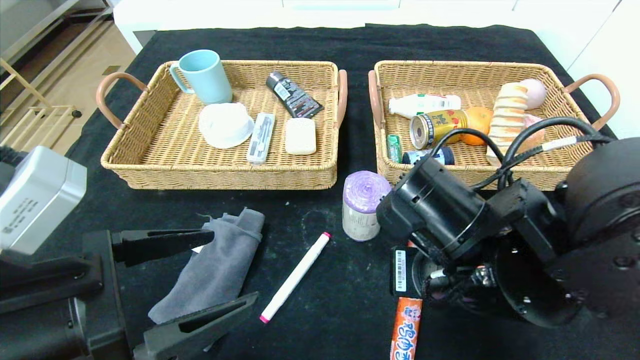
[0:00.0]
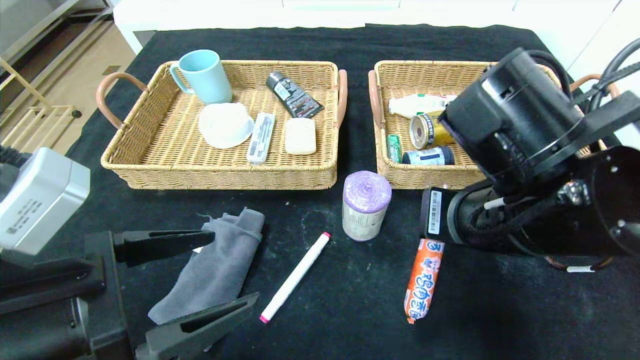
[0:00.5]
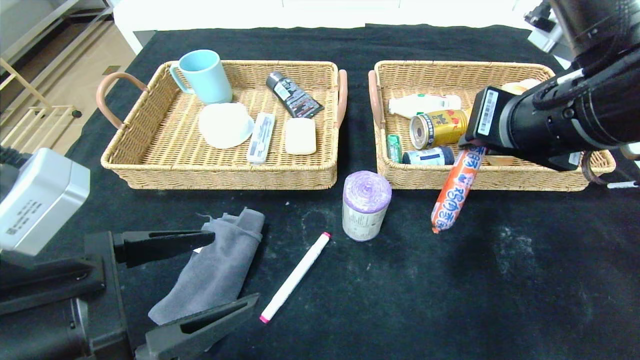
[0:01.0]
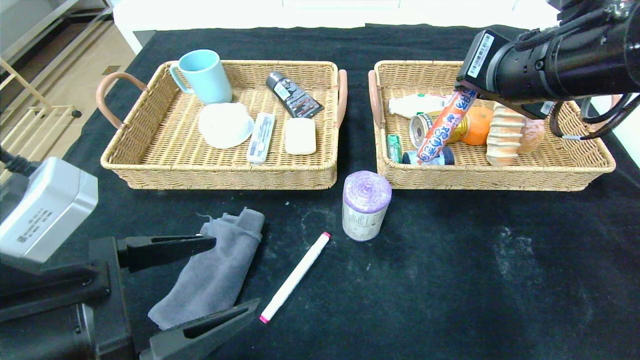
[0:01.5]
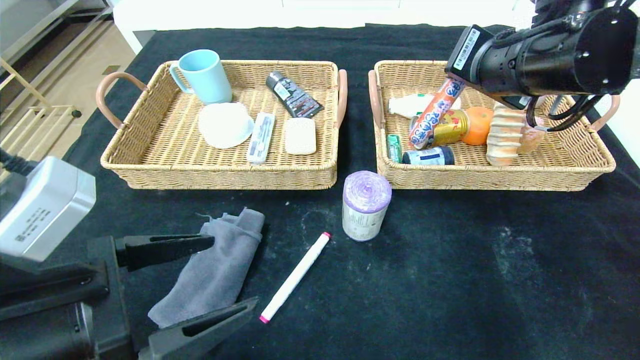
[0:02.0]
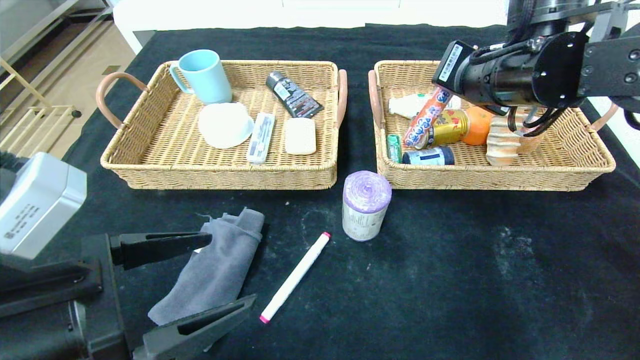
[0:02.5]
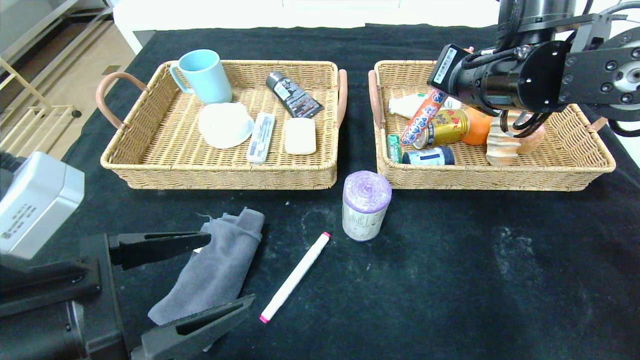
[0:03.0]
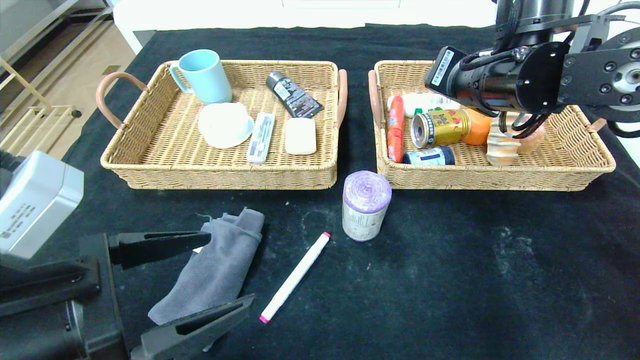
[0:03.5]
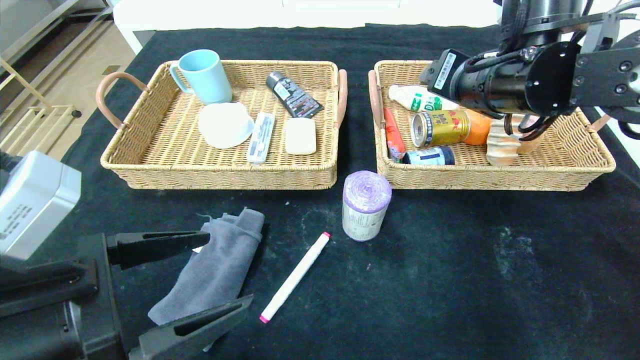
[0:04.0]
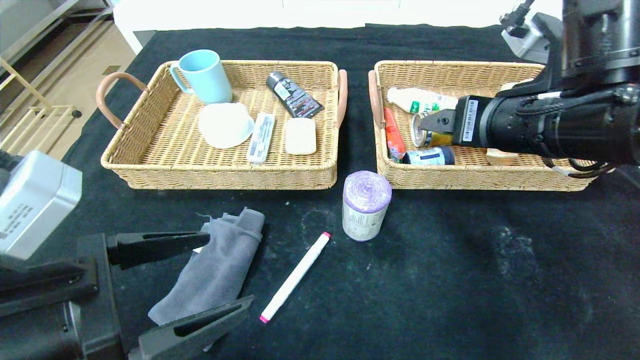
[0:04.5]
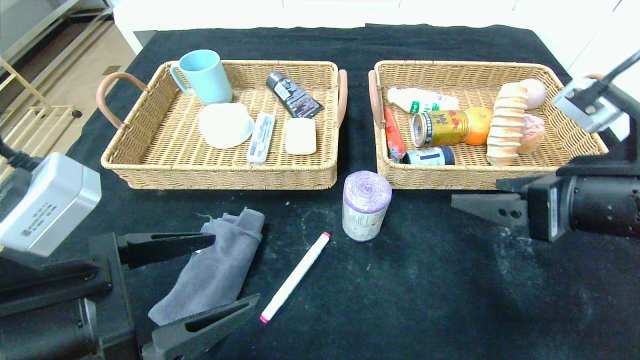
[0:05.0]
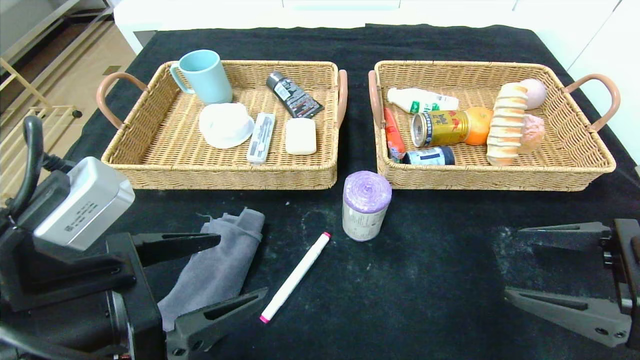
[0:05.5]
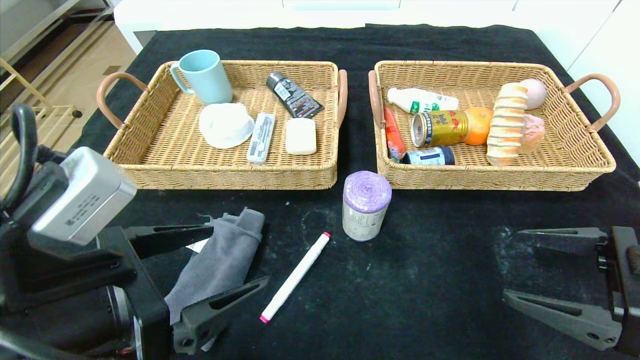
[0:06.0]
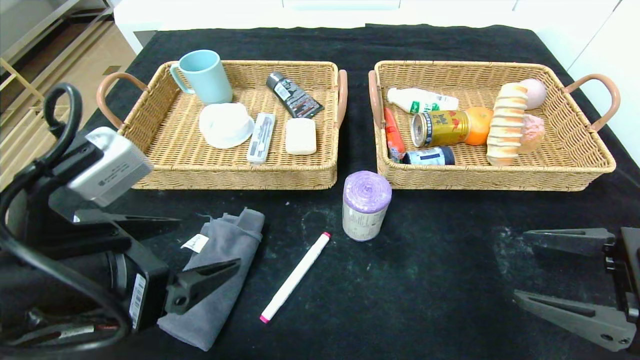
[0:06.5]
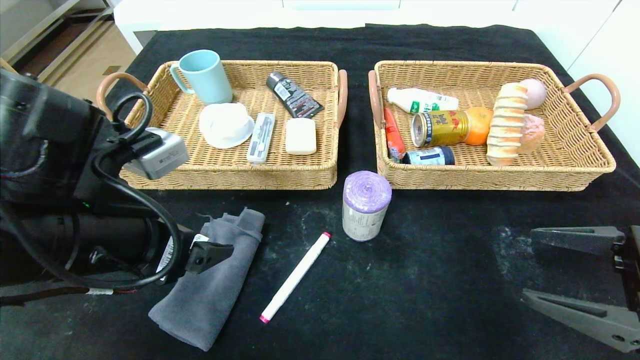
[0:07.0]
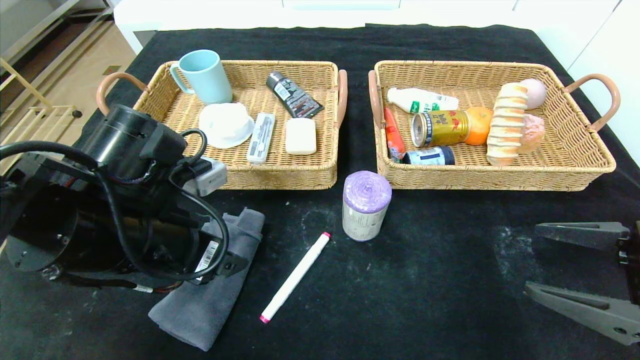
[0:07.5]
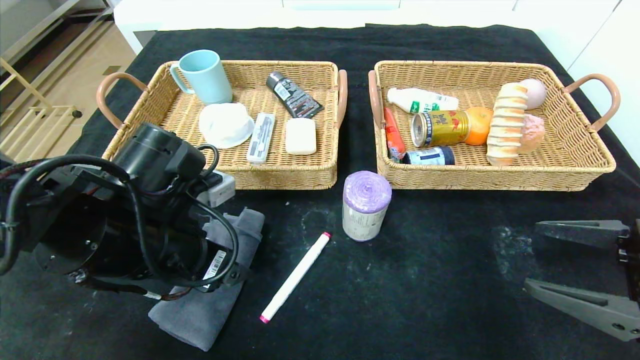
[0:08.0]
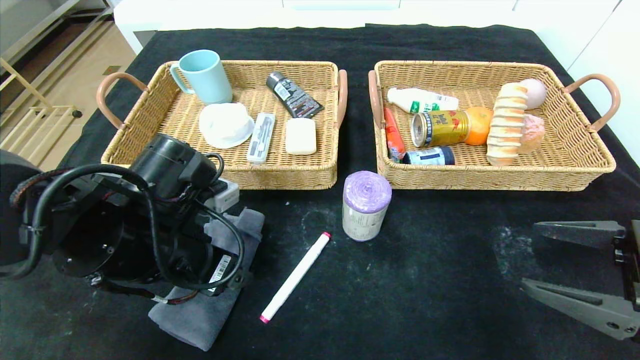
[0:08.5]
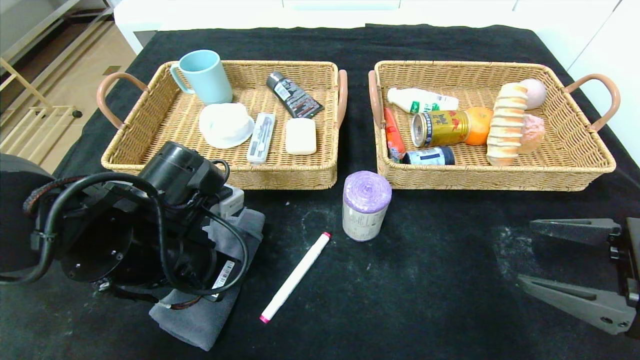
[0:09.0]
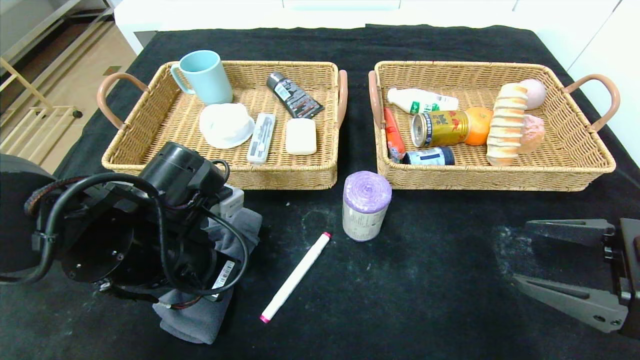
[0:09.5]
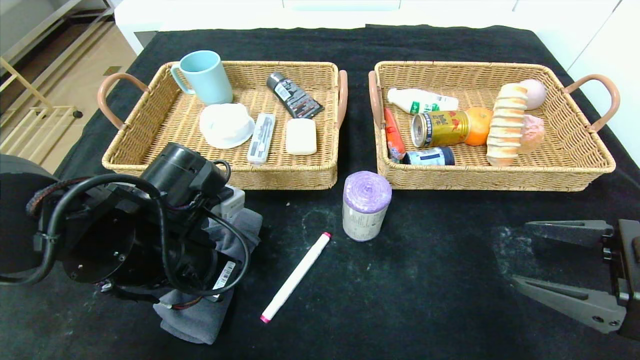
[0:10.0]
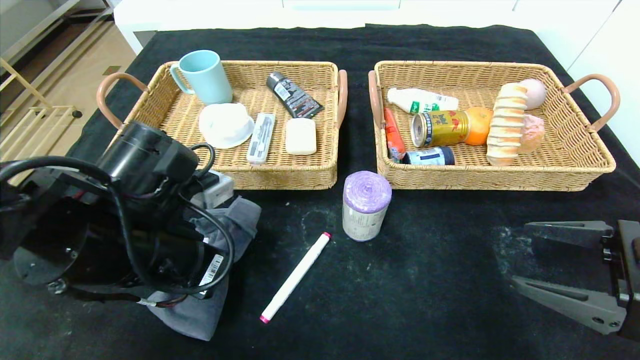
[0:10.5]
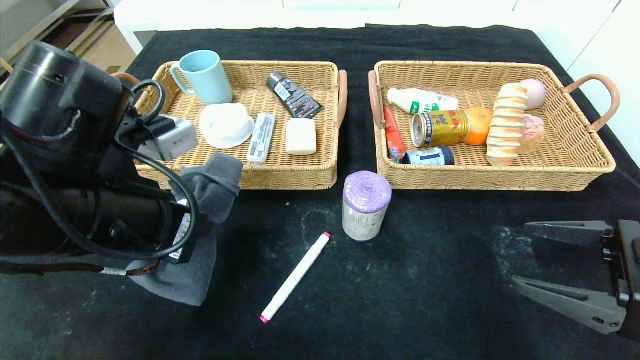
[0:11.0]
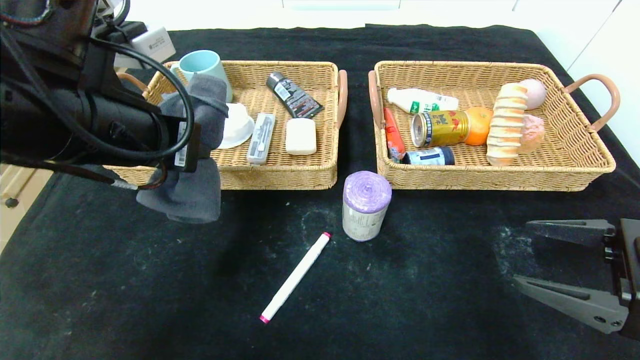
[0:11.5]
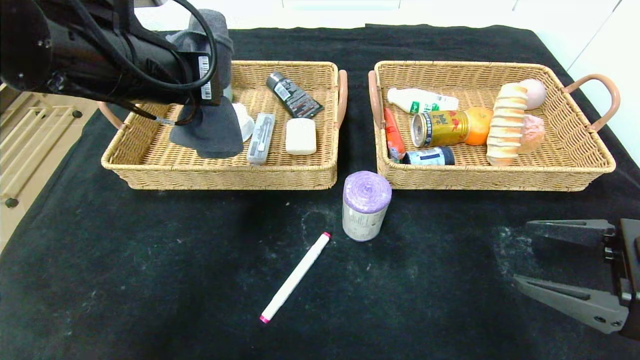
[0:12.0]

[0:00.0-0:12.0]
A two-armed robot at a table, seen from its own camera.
Step, 0:00.0 to 0:05.5: Pick up the sausage and put it in the right basket.
0:00.0 to 0:02.0: The right gripper moves upward, forward and to the right, roughly 20 cm.
0:02.0 to 0:04.0: The right gripper opens up.
0:04.0 to 0:06.0: The right gripper shifts some 25 cm backward, to the right and downward.
0:06.0 to 0:08.0: The left gripper travels forward by roughly 10 cm.
0:08.0 to 0:10.0: The left gripper closes.
0:10.0 to 0:12.0: The left gripper heads upward, covering approximately 15 cm.

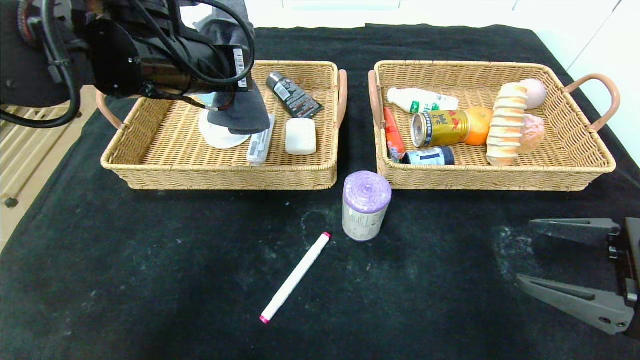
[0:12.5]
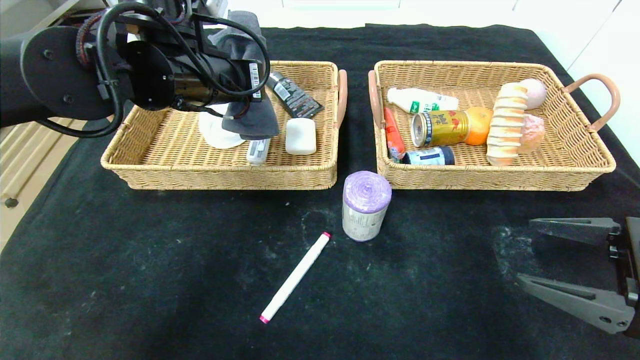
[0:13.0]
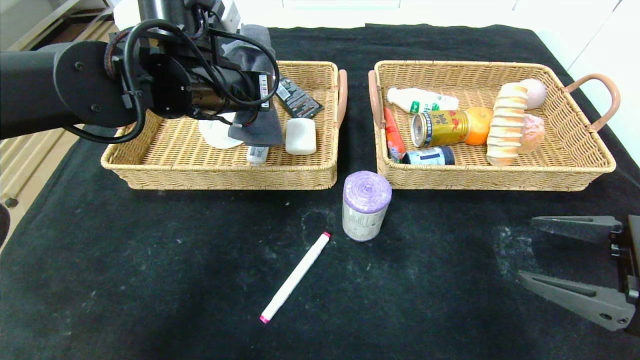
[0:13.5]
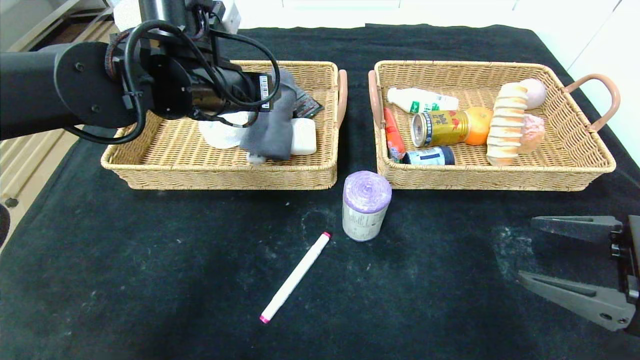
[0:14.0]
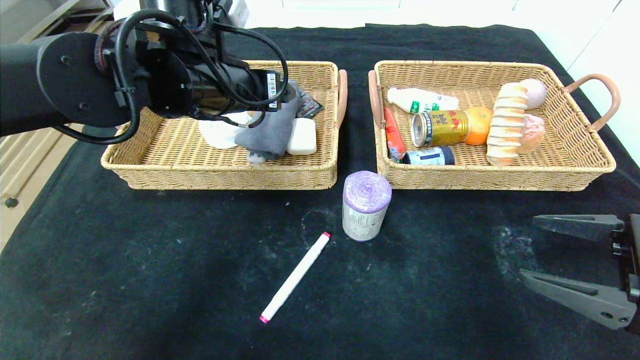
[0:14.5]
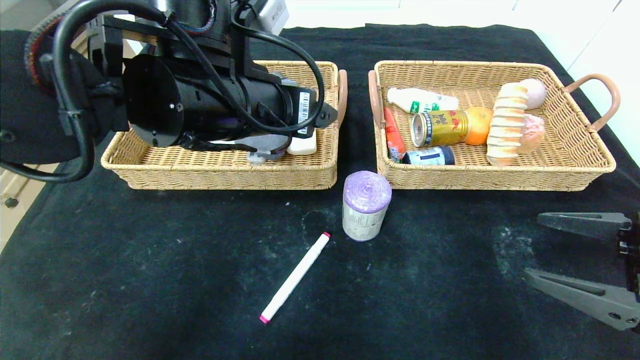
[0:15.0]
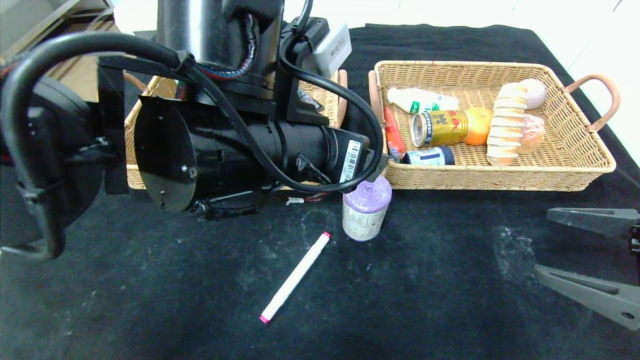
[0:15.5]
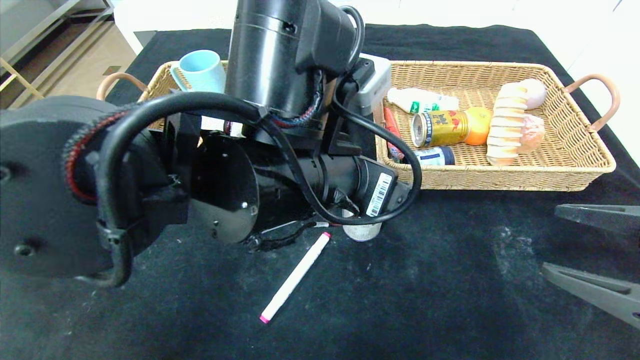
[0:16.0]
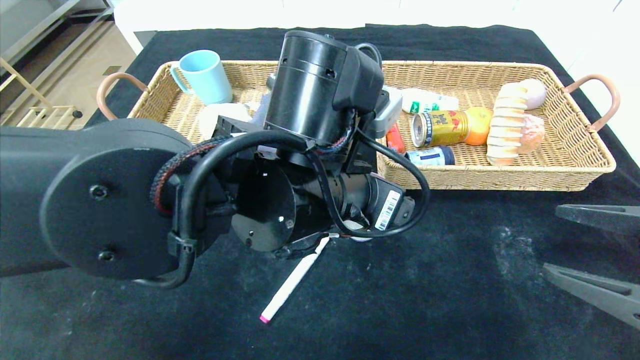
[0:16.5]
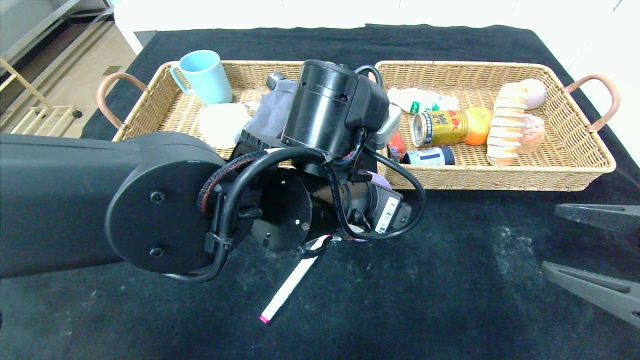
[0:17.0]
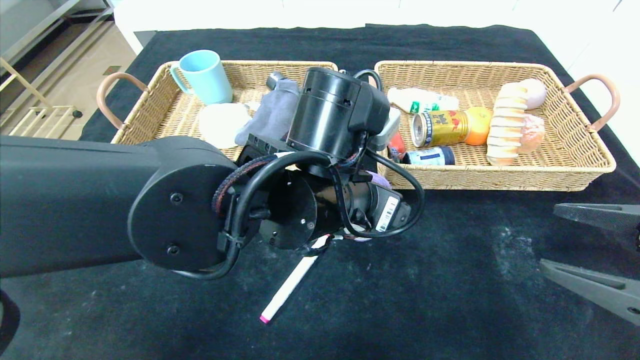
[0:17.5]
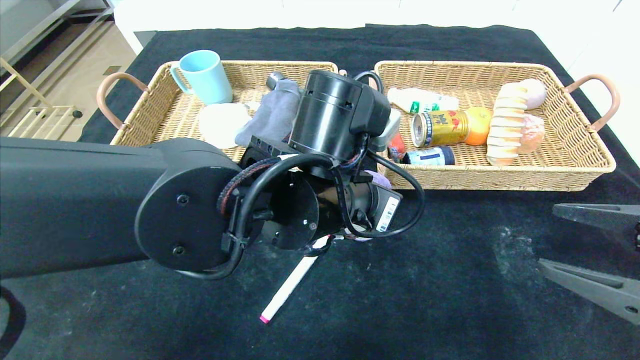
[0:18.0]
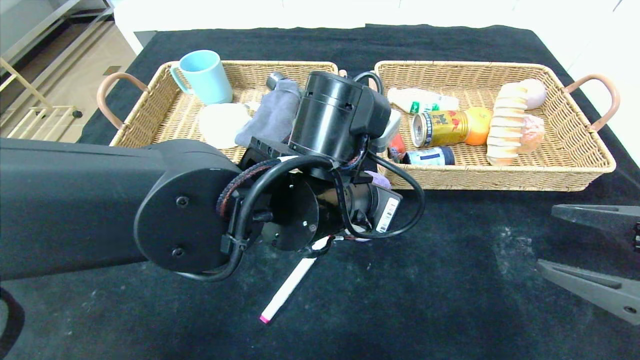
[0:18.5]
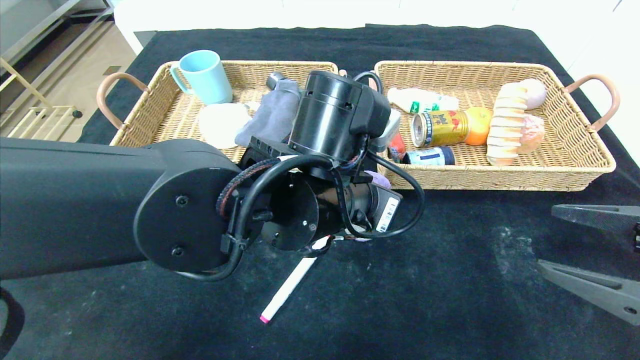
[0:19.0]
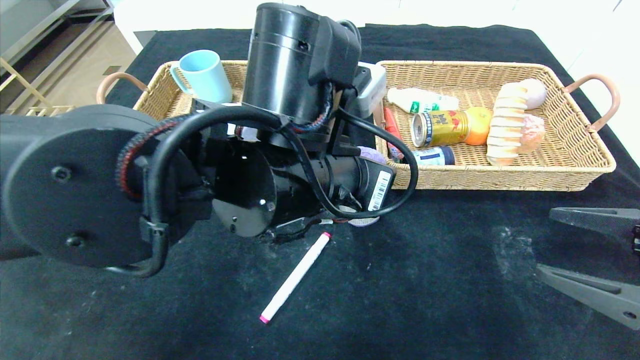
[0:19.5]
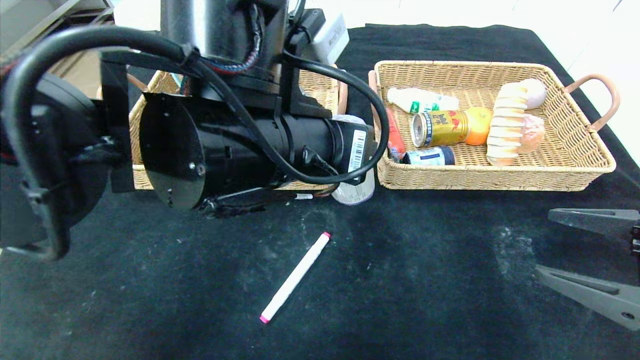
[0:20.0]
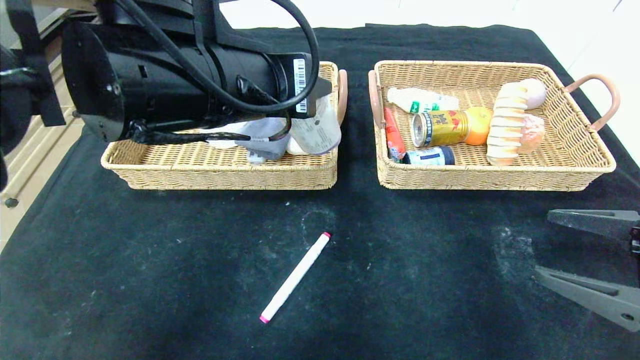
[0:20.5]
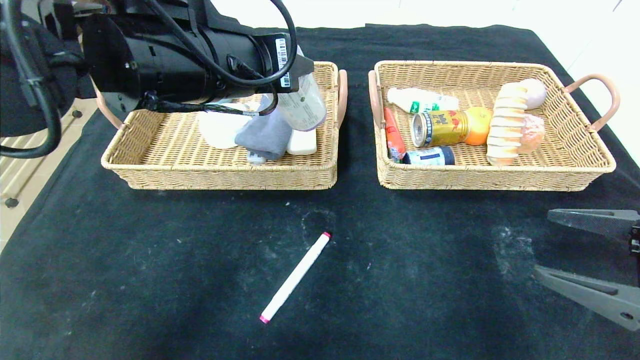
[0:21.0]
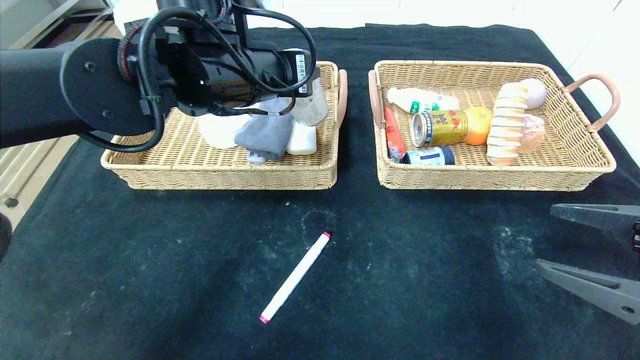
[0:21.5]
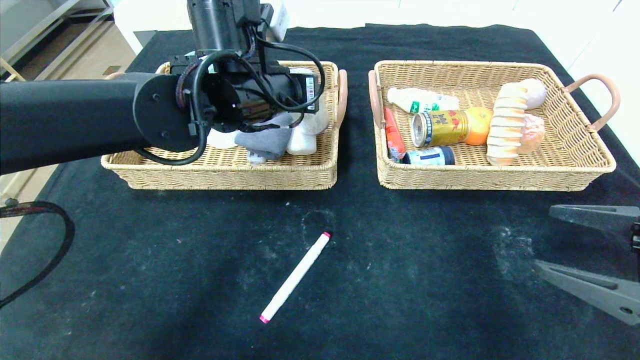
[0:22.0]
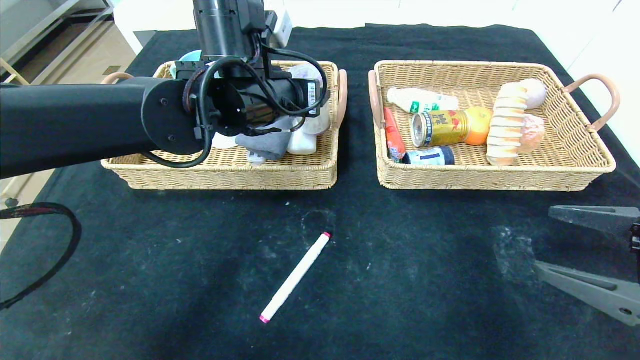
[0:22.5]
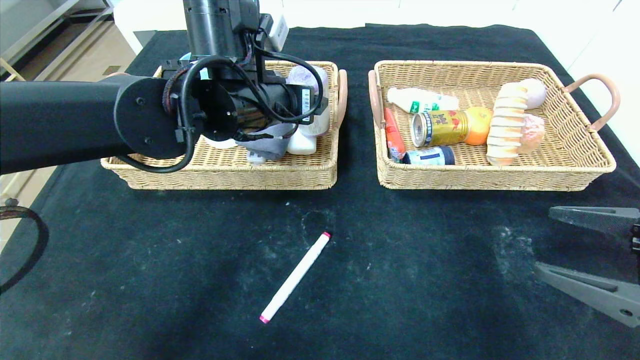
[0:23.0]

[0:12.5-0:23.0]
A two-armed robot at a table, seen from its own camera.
Step, 0:12.5 to 0:15.0: Pick up the gray towel and put it in the left basket.
0:12.5 to 0:14.5: The left gripper opens up.
0:14.5 to 0:16.5: The left gripper travels to the right, backward and downward by roughly 15 cm.
0:16.5 to 0:19.0: The left gripper closes up.
0:19.0 to 0:21.0: The left gripper moves upward and to the left, about 15 cm.
0:21.0 to 0:23.0: The left gripper travels forward by some 5 cm, and opens up.
